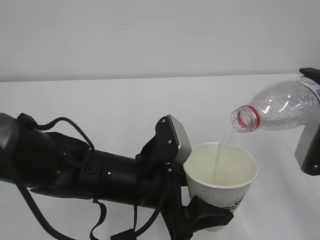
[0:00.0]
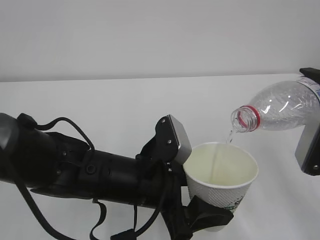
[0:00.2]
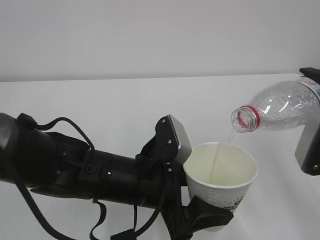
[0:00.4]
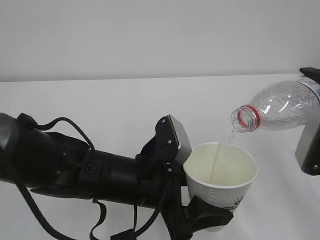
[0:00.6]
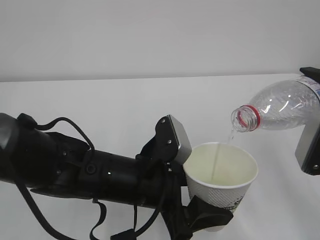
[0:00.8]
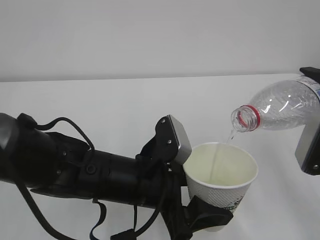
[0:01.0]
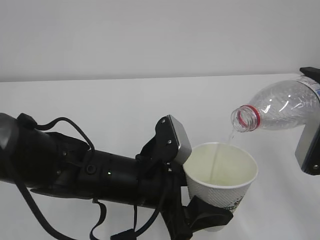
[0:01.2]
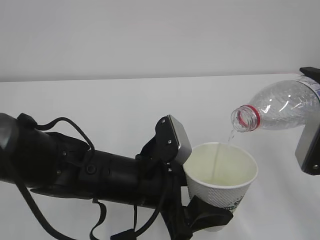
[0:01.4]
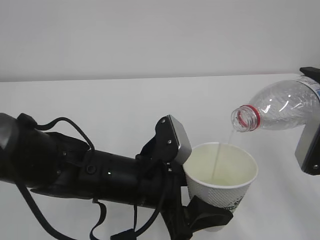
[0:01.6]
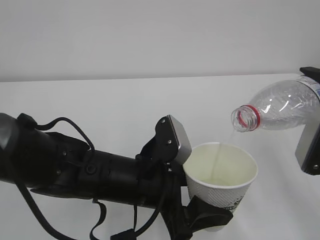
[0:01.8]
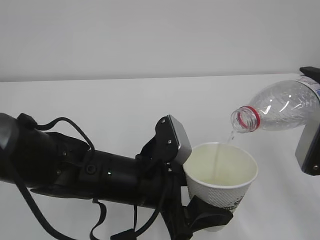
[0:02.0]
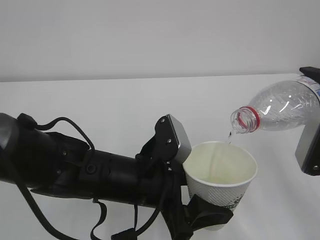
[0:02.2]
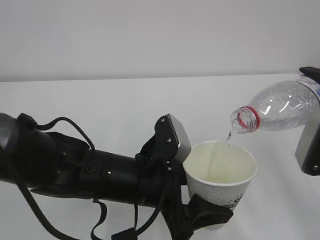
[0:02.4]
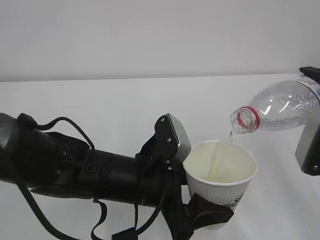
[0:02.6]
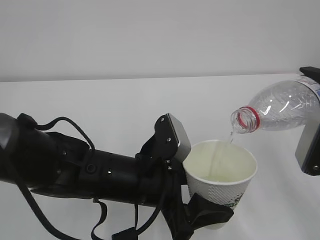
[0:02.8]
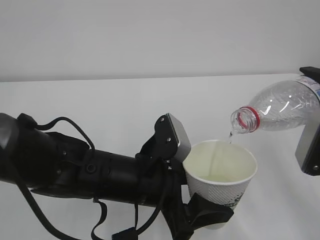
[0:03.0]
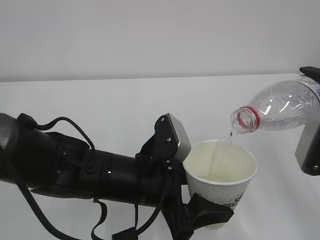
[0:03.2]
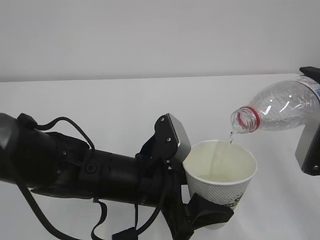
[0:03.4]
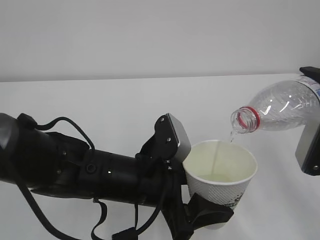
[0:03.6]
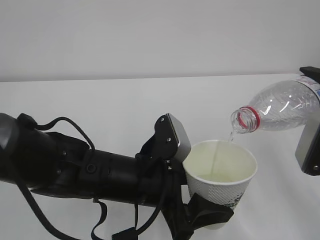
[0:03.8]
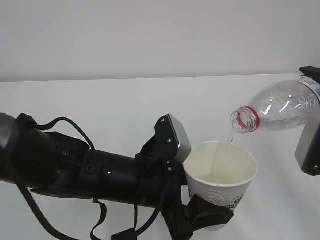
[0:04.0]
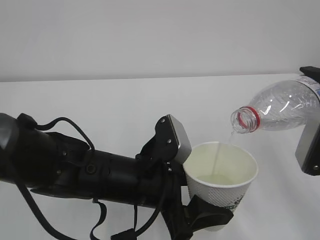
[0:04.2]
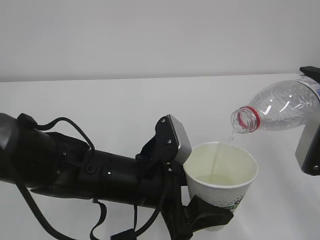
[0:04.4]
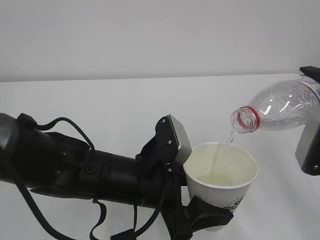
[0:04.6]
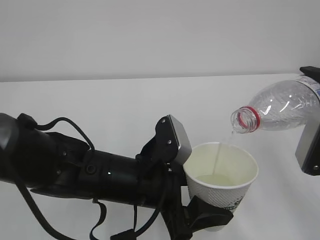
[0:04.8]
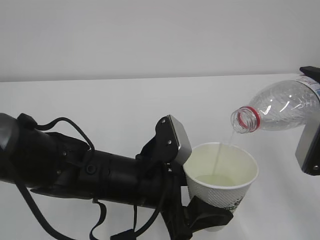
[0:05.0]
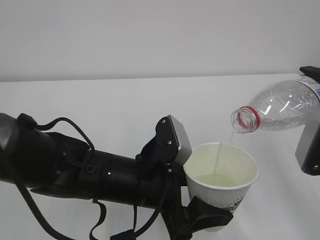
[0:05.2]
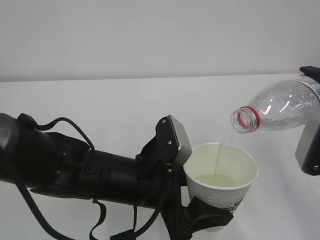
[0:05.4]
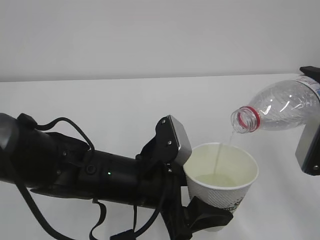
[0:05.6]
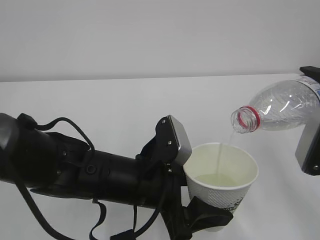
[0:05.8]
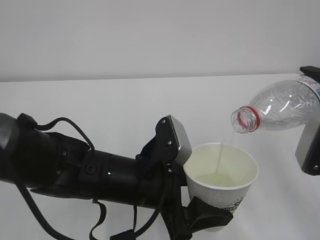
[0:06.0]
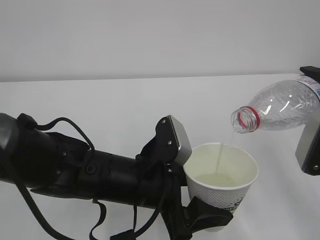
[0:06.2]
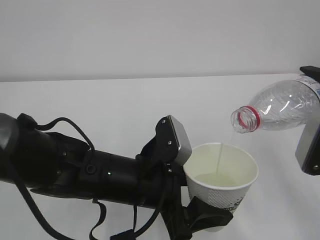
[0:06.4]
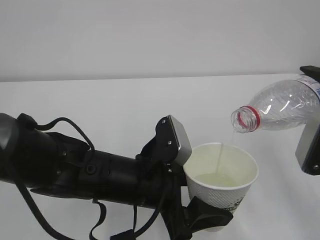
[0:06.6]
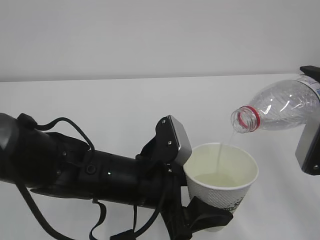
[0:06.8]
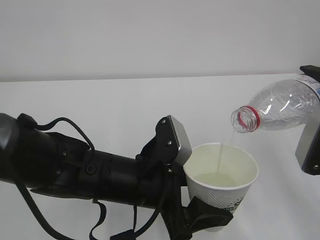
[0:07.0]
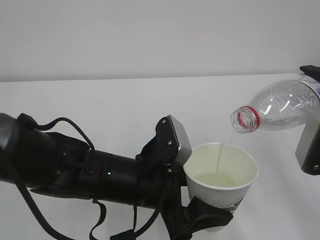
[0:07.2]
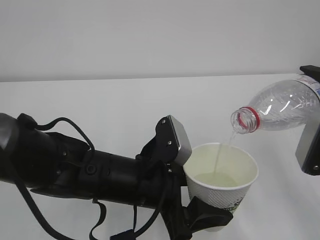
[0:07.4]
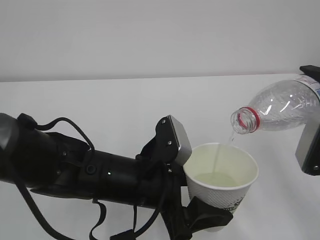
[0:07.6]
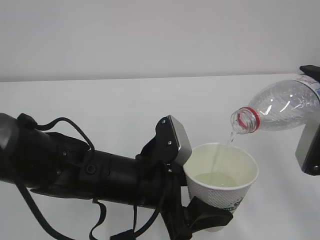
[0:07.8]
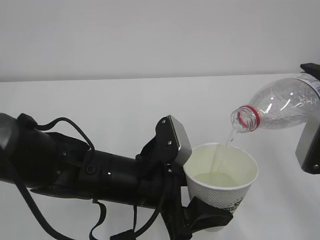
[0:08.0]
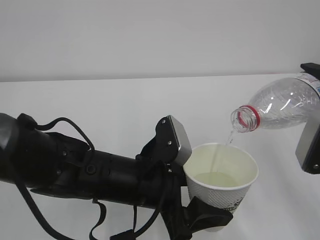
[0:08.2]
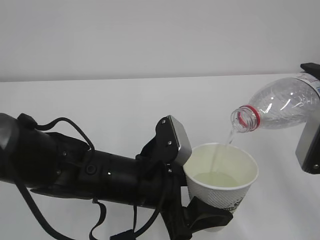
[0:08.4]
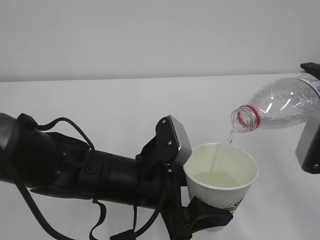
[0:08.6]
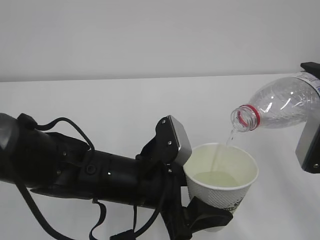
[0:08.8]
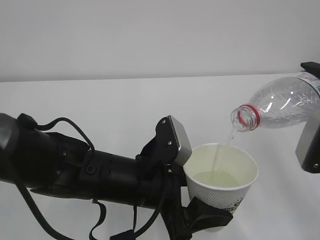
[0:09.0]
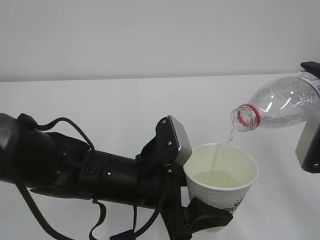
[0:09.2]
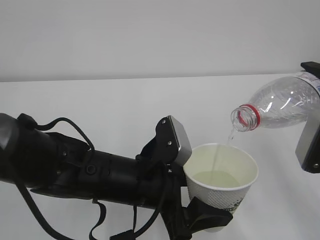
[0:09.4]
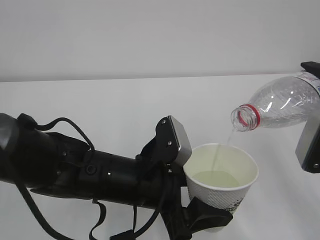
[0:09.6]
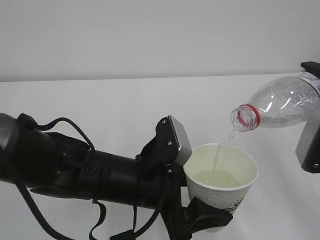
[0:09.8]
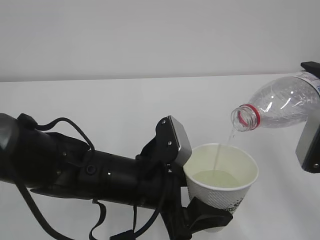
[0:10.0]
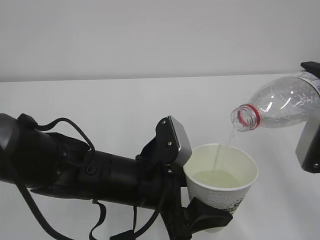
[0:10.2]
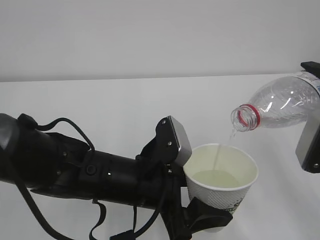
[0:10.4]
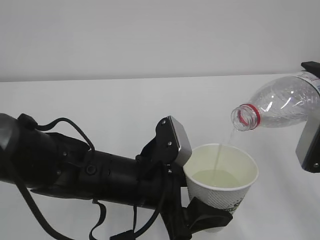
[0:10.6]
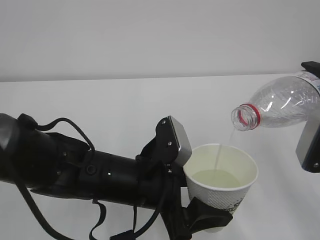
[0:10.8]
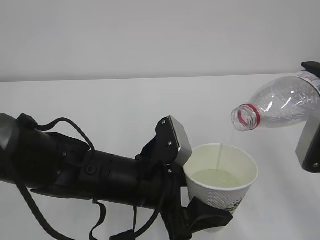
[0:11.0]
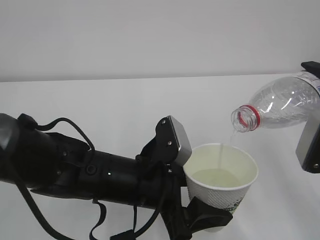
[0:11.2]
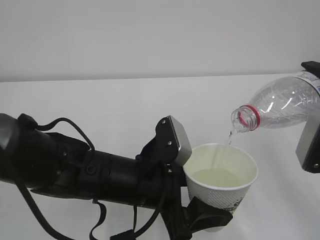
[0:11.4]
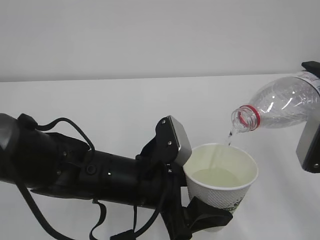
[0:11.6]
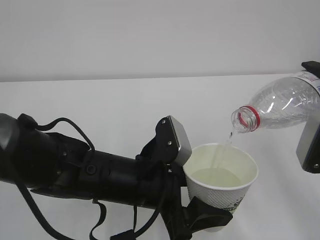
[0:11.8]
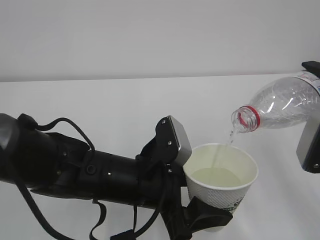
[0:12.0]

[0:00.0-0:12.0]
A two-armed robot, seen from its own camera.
0:00.0 to 0:12.0: Both grippers stay about where they are.

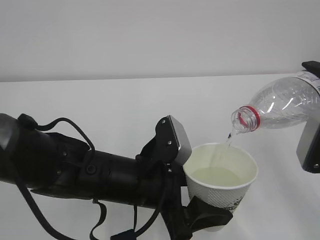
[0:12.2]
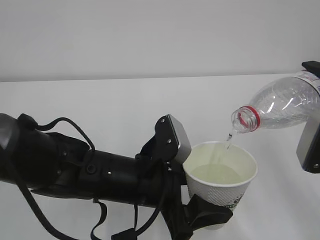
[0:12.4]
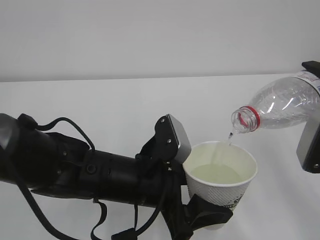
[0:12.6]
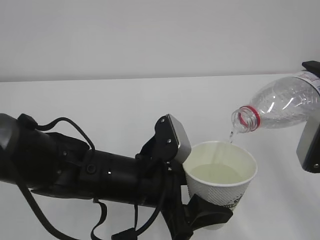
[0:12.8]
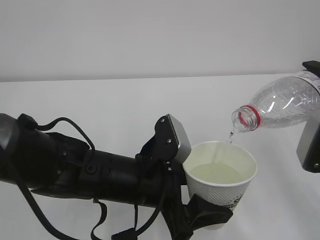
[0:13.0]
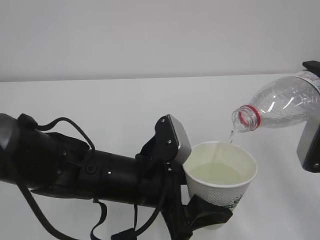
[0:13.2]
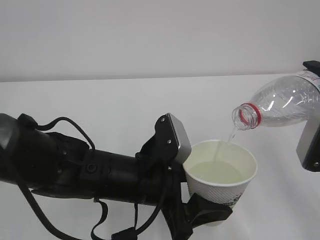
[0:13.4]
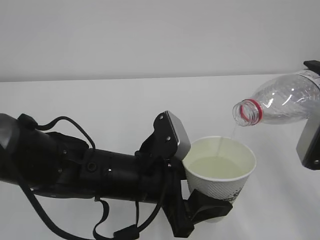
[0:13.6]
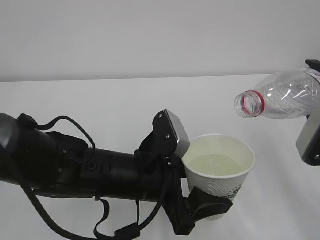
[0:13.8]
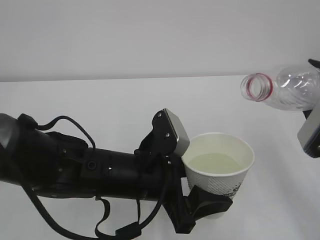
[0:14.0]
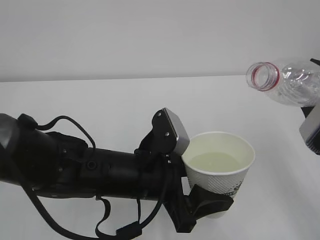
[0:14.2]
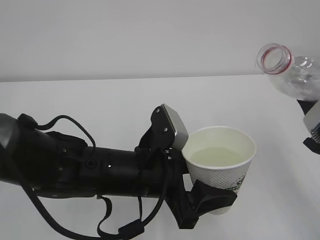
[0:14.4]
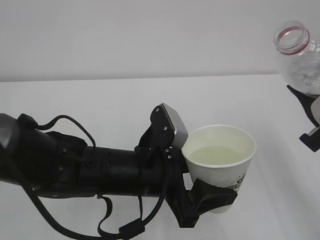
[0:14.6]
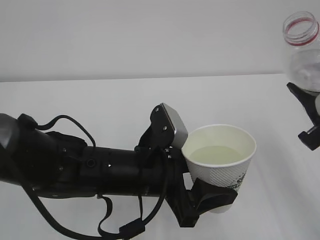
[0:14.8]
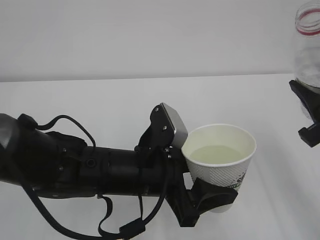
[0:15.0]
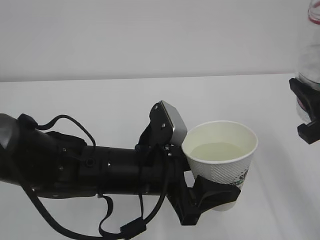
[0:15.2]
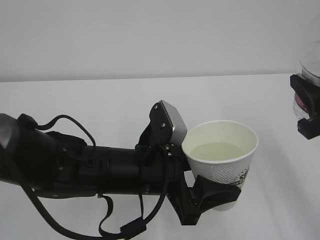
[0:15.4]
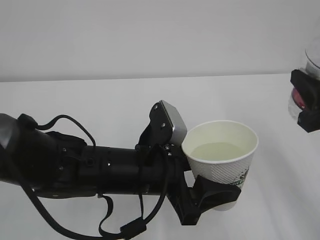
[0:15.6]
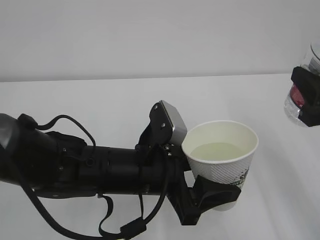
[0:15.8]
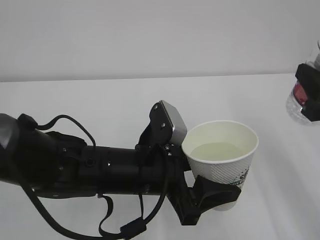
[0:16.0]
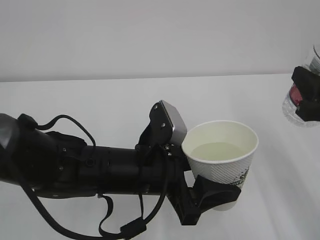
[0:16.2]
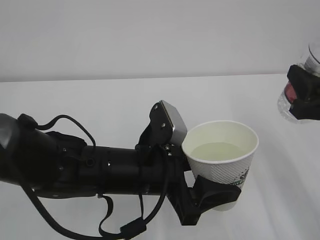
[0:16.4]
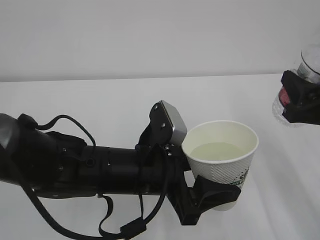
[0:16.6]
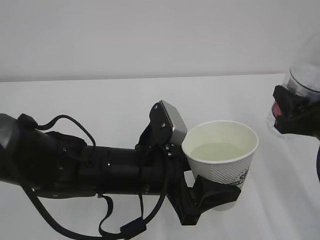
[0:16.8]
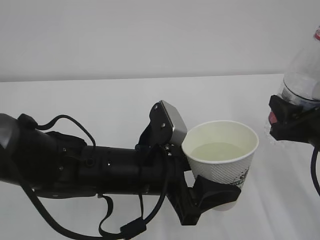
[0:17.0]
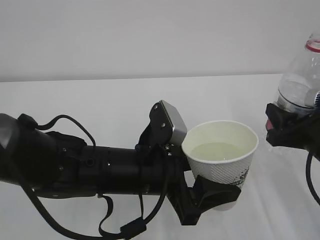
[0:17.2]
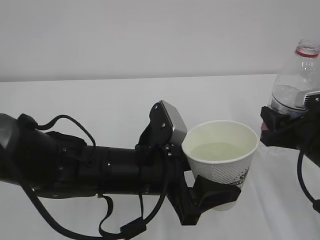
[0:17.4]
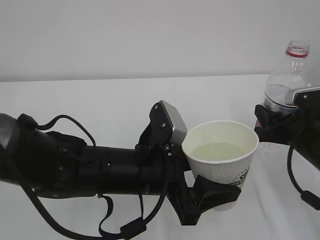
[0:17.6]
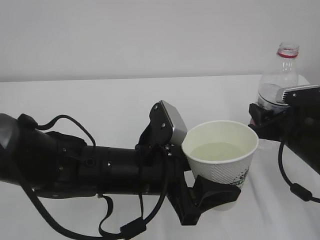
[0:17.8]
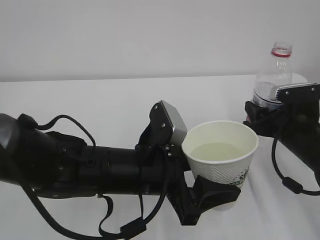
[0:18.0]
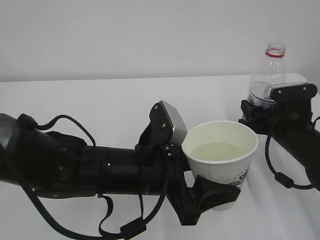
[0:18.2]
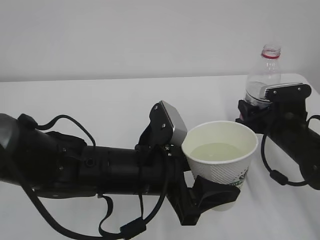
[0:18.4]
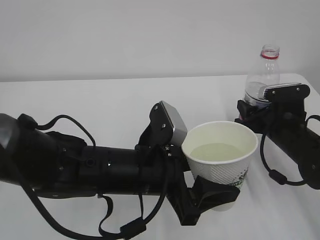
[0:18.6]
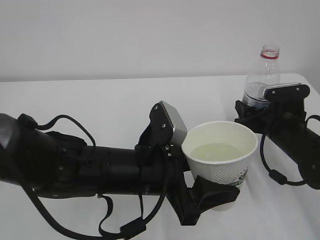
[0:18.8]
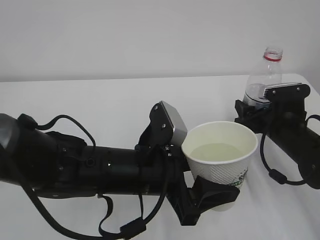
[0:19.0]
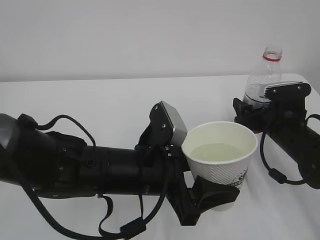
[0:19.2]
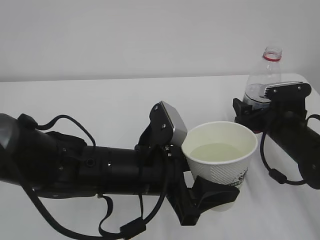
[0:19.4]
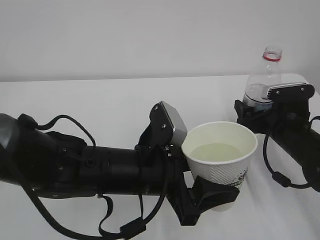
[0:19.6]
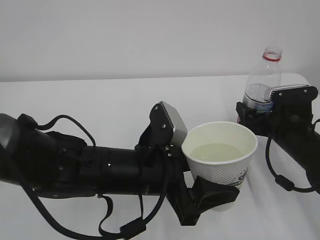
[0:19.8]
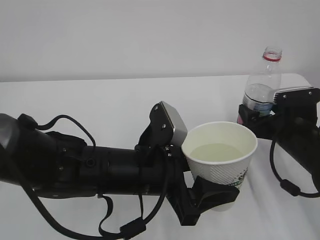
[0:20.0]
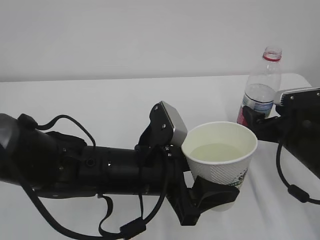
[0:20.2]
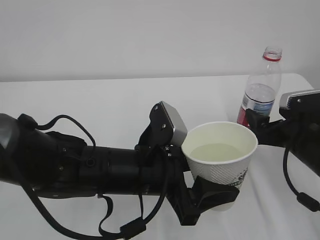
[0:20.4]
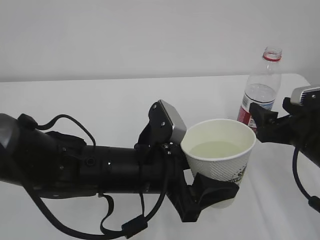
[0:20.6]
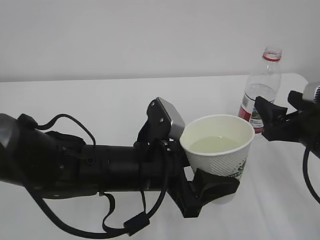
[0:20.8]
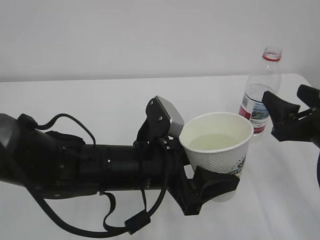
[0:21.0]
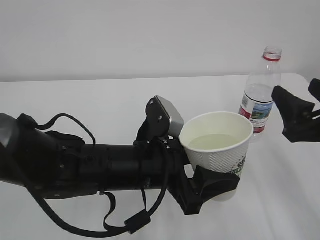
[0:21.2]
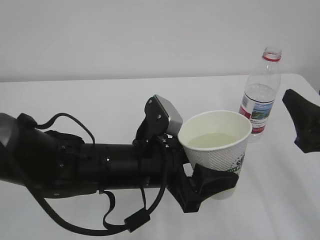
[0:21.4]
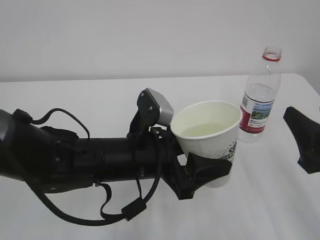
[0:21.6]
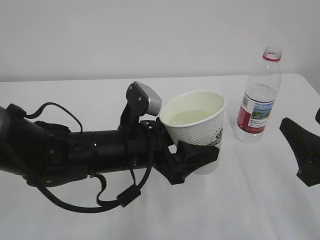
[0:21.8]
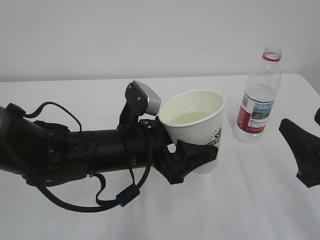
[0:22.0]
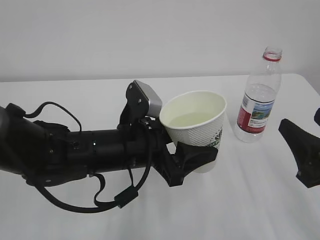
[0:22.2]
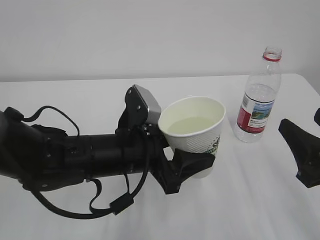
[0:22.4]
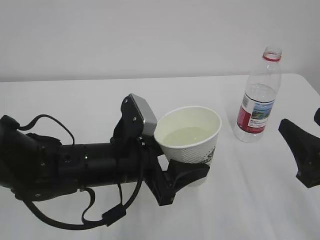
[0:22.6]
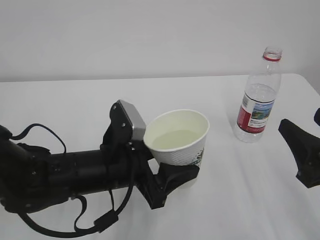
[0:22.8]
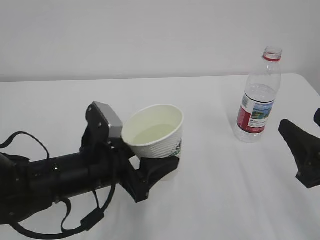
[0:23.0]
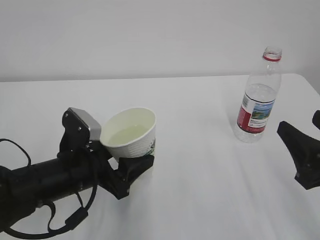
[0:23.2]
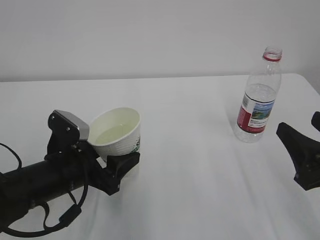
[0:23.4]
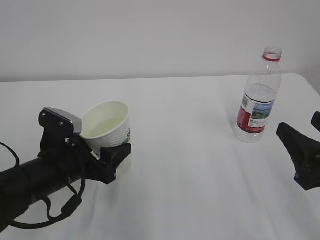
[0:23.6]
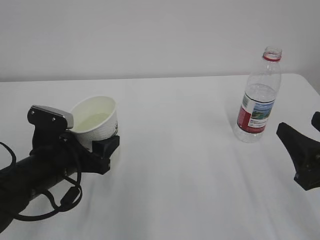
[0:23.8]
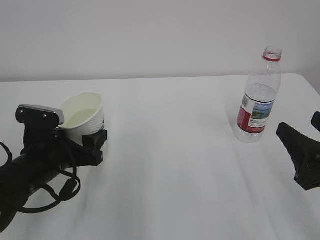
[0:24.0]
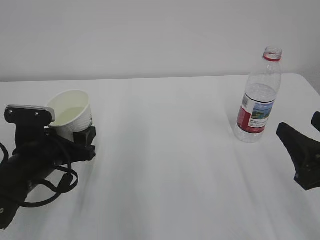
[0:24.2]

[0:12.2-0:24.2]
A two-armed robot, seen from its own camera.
0:12.2 to 0:13.8: The grippers move only a little.
0:16.6 to 0:18.2: The right gripper is displaced downward and forward by about 15 cm.
0:18.2 to 0:19.8: The right gripper opens up.
0:19.8 to 0:21.2: The right gripper travels backward and upward by about 15 cm.
0:22.6 to 0:24.2: The left gripper goes about 15 cm to the left.
